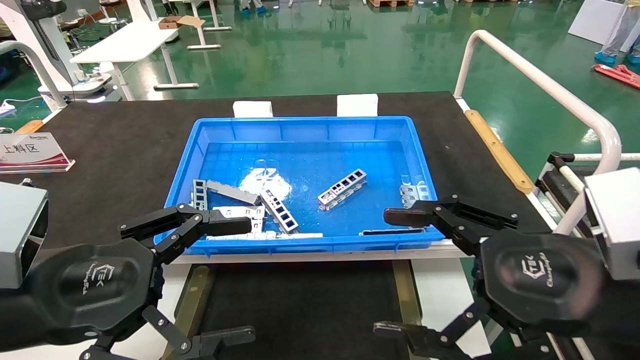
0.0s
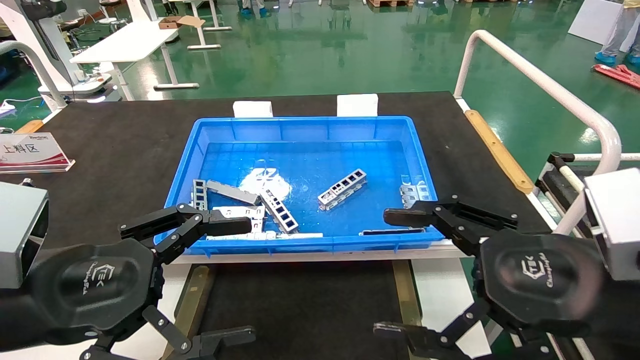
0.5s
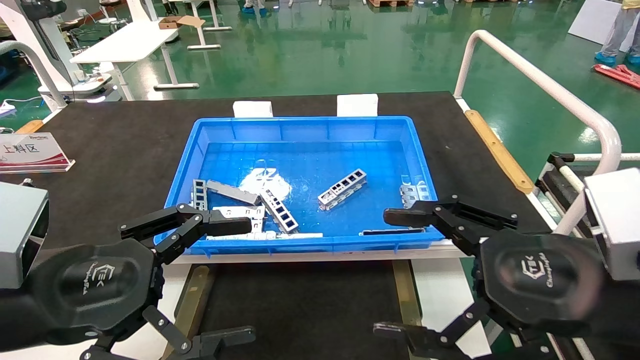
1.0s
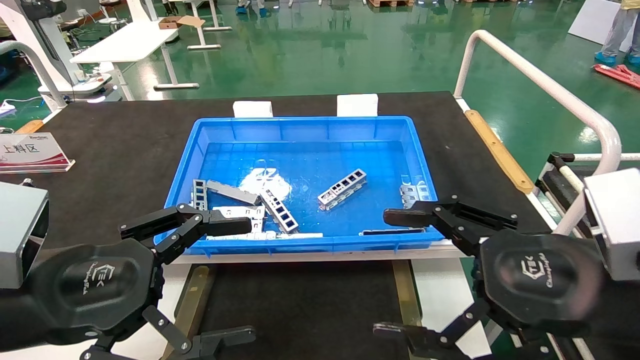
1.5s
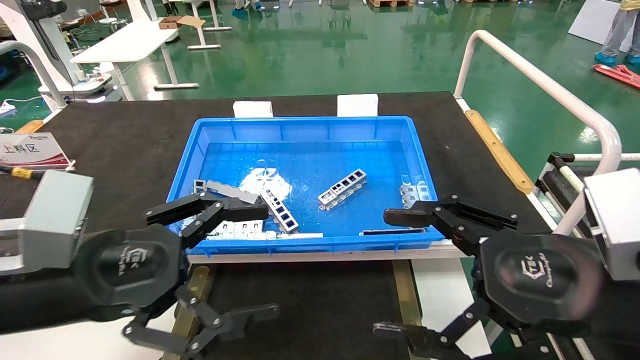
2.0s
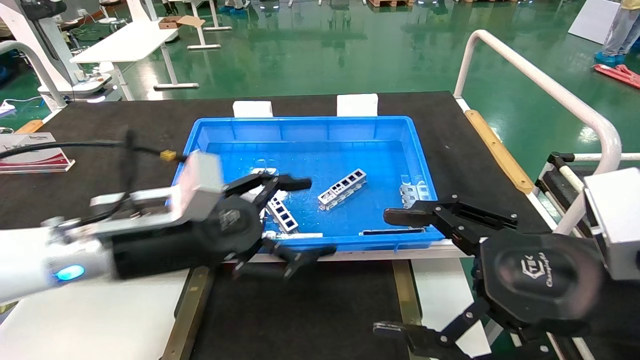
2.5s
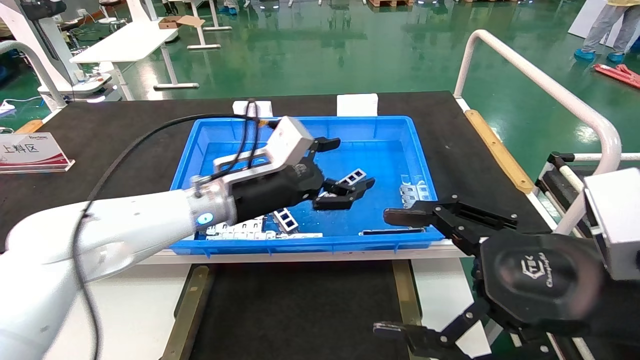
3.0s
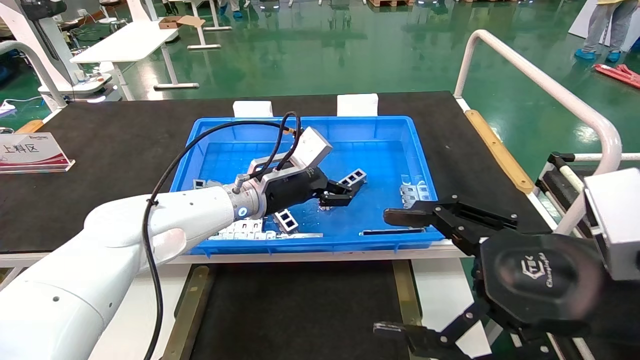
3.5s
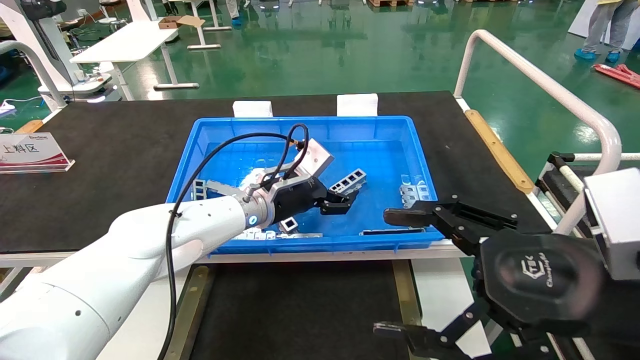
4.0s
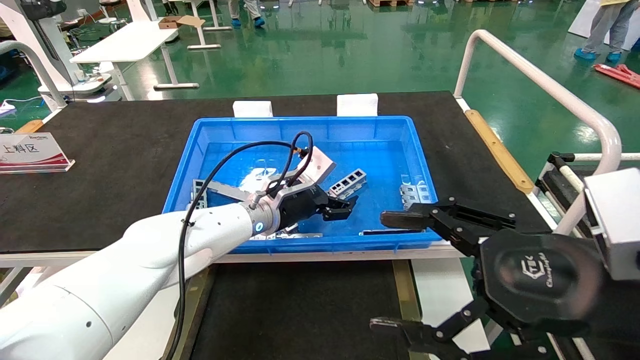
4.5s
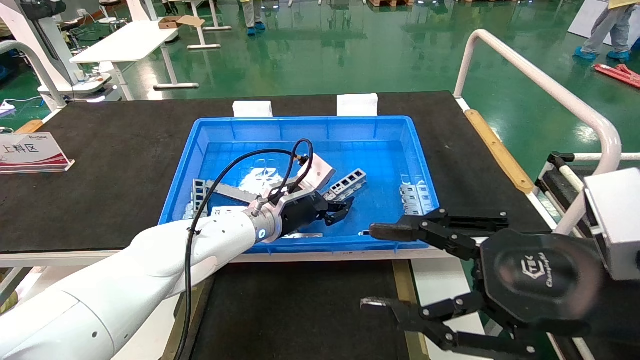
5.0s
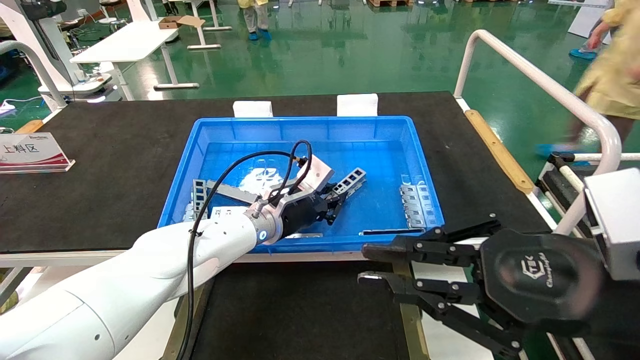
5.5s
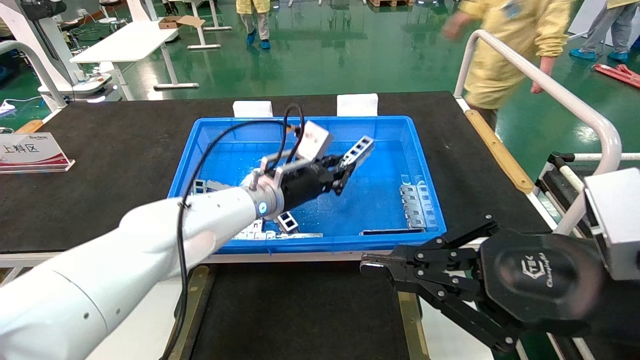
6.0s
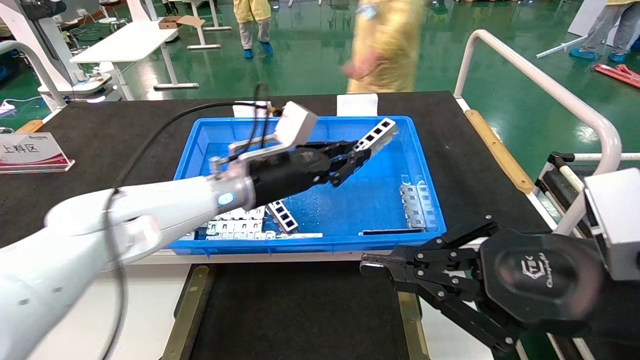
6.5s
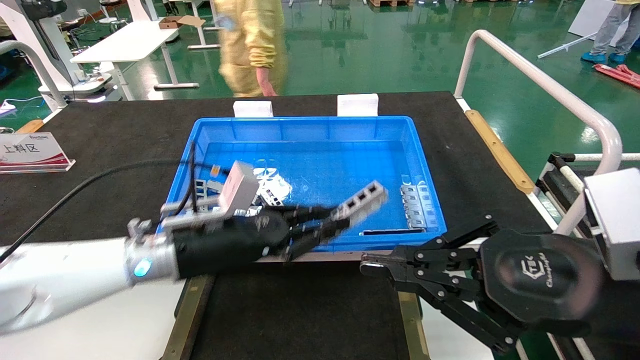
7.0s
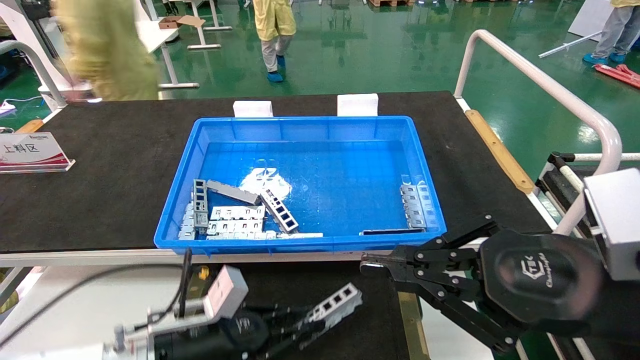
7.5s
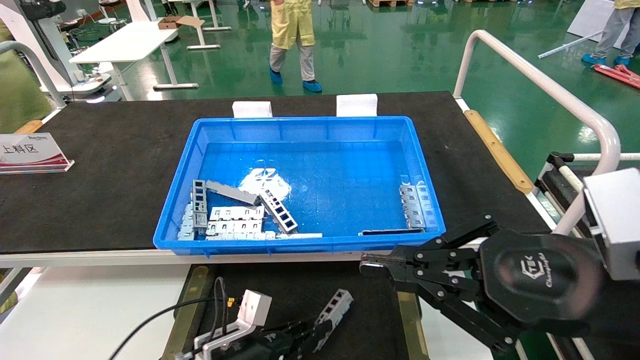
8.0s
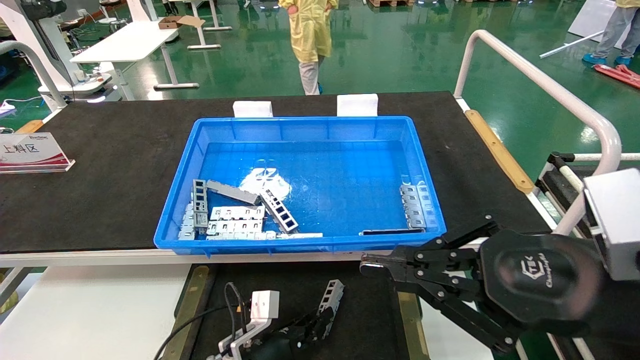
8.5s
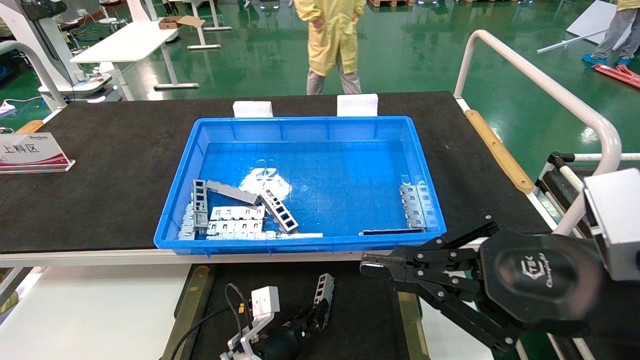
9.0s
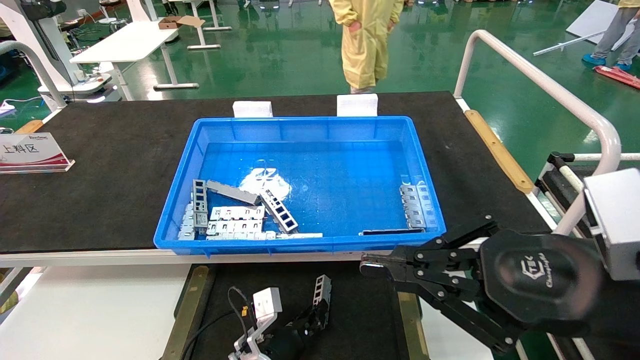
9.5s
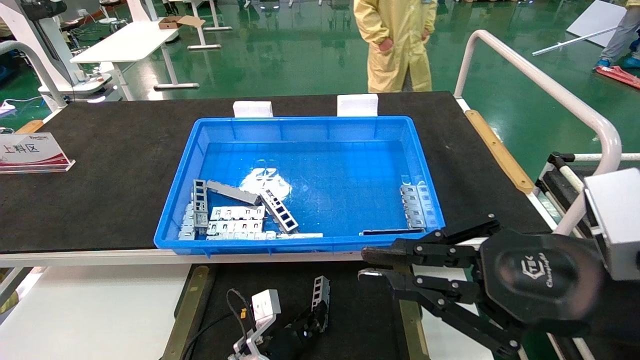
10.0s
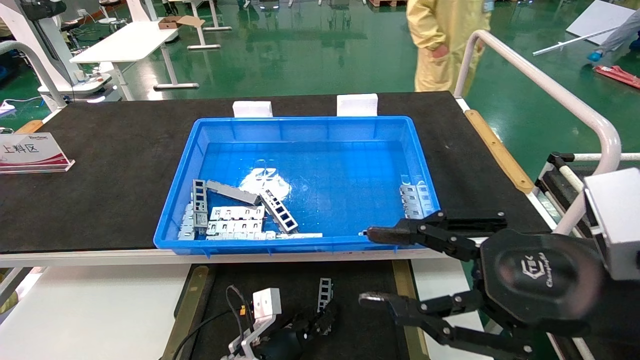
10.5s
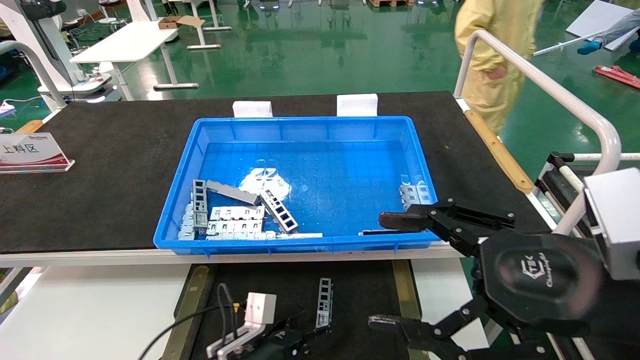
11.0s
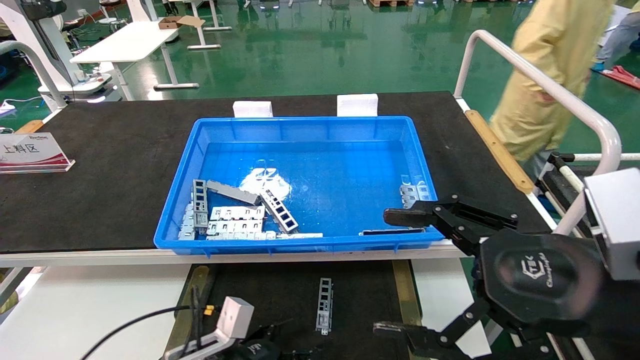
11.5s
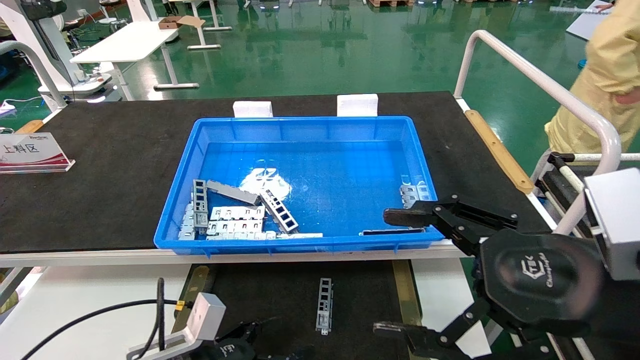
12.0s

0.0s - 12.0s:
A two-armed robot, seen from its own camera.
Task of the whole recording: Grasp the part with one hand and place it on the black container.
Step, 2.0s - 5.5s: Pick up the front USB bracket from the feeding area.
Step, 6.0s - 10.5s: Place the front USB bracket into the box.
0.0s - 2.0s: The grippers move only a little.
2.0s - 4.0s: The left gripper travels forward and to the right by roughly 30 cm.
4.0s - 6.0s: The right gripper closes, while the left gripper closes.
6.0s - 8.0s: The left gripper travels downward and backward by roughly 25 cm.
8.0s - 10.0s: The left gripper goes approximately 5 cm to the right.
10.0s - 12.0s: The right gripper opens up, while the left gripper heads to the left, backward and upward, covering approximately 20 cm, and opens.
